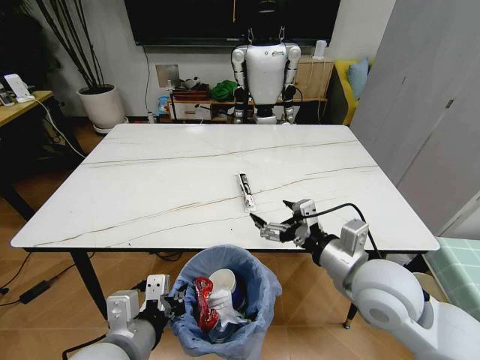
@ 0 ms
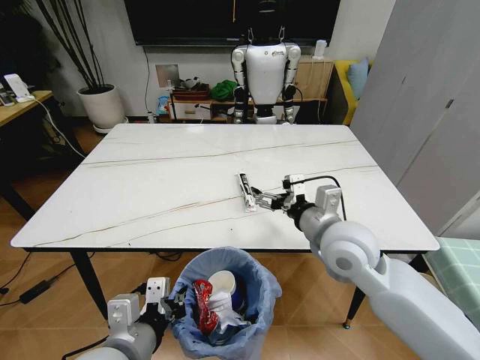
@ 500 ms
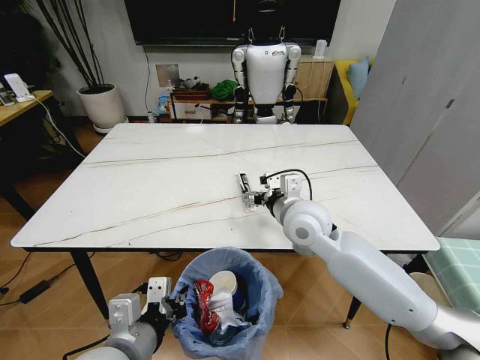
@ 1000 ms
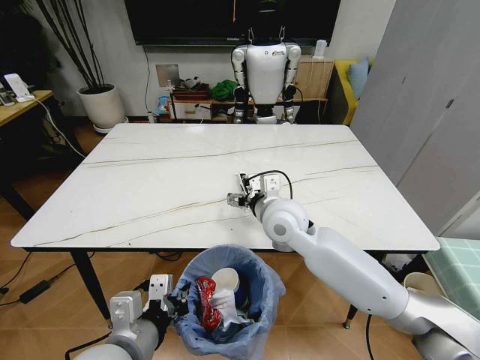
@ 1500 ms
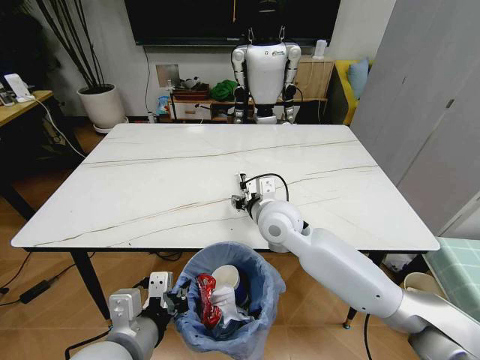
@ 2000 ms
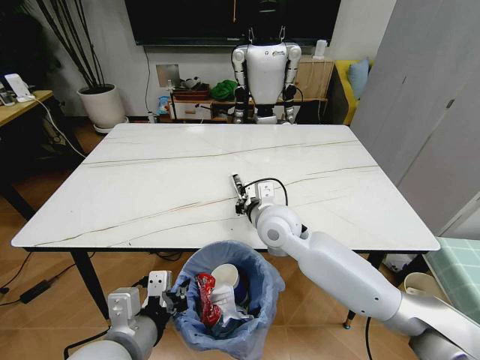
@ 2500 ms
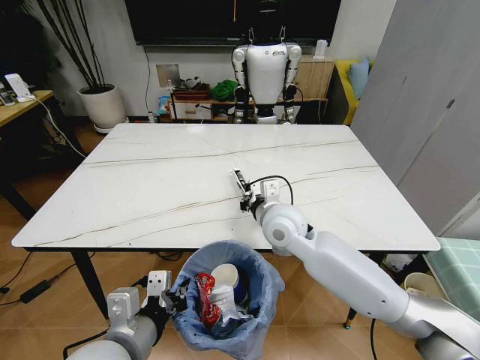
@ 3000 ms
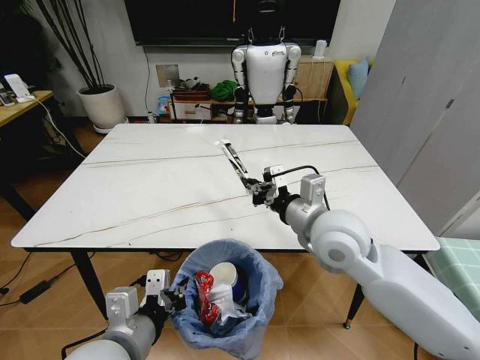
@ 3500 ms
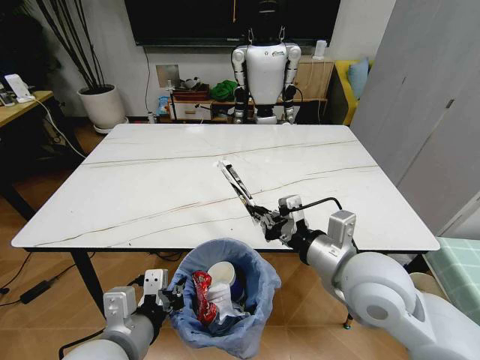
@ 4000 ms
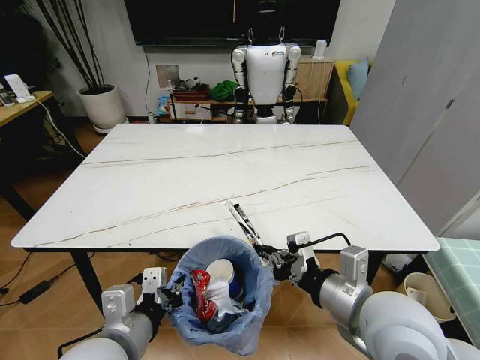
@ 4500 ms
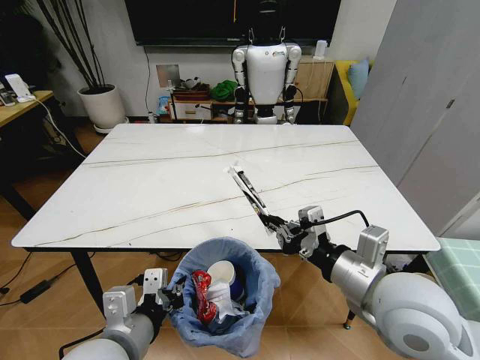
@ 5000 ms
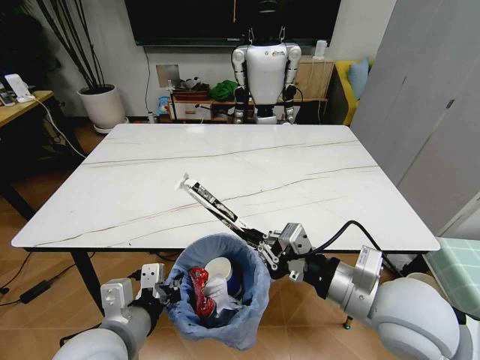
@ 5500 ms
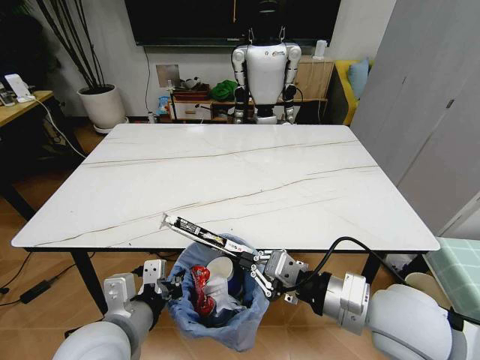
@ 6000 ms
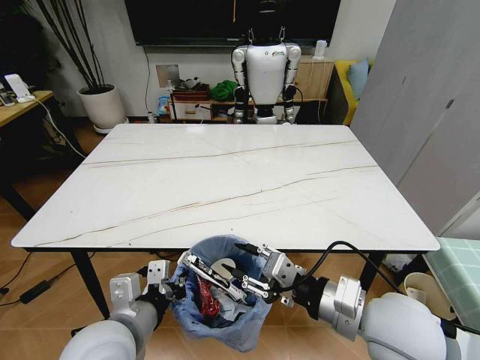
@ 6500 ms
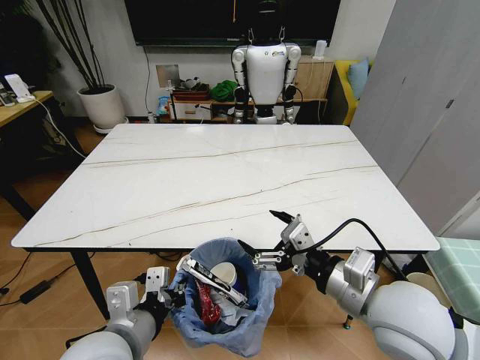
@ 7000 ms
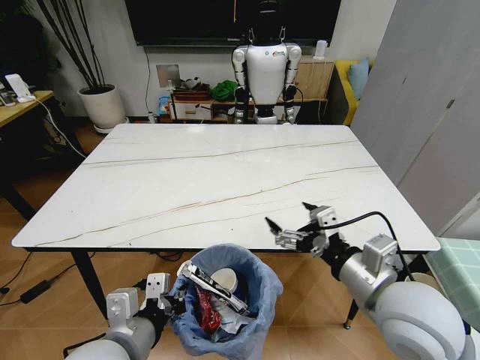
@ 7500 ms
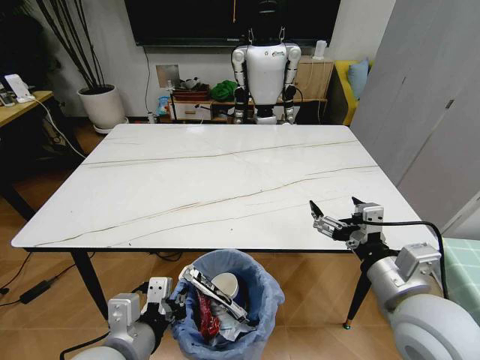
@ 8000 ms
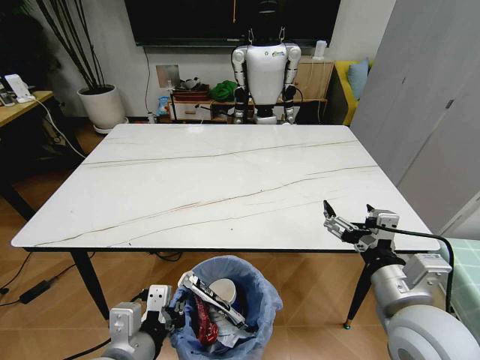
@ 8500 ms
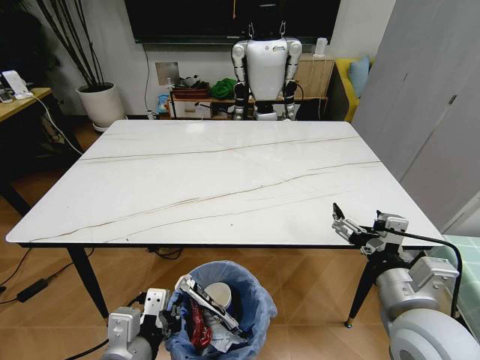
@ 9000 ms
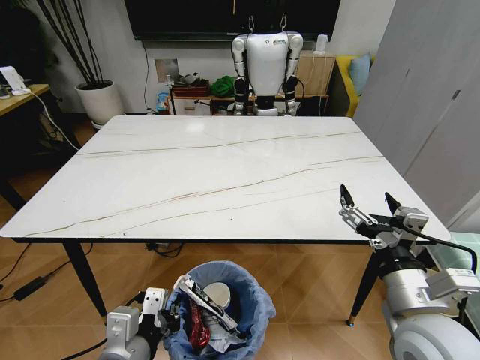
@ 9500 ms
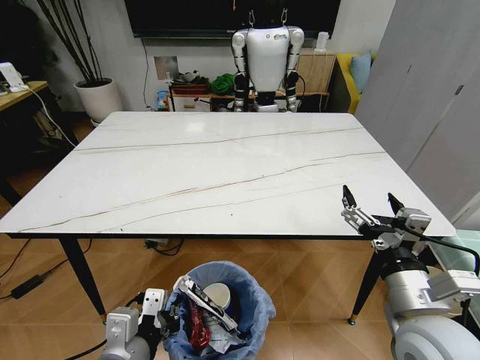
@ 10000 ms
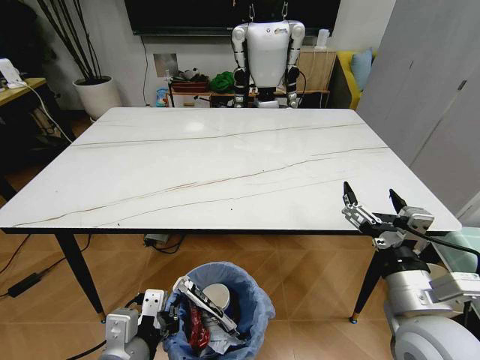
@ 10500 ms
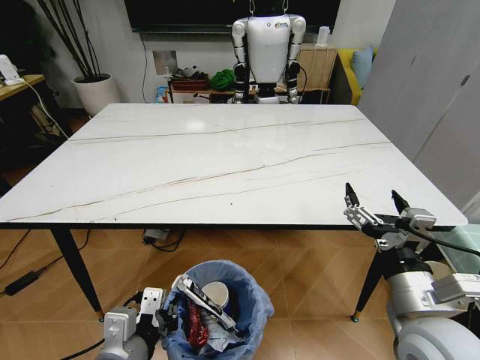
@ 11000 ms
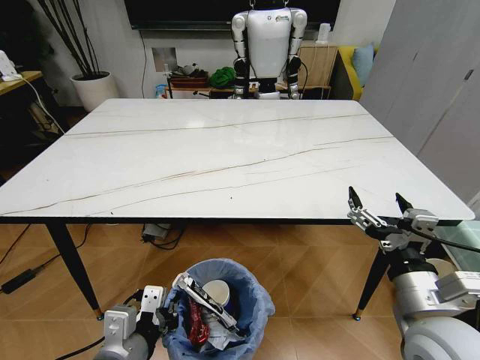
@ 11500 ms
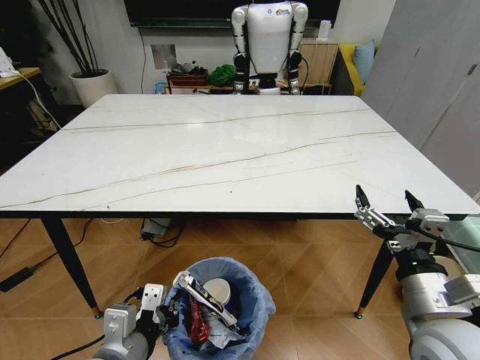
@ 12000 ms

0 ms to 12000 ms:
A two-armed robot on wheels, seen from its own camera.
Task of the whole recording: Pick up the trash bin and place the trash from the table into it.
0 ms to 2000 ms: The right gripper is displaced forward and to the left by some 20 cm, and closes up.
2000 ms to 4000 ms: The right gripper shifts about 20 cm backward and to the right, and closes its fingers.
4000 ms to 6000 ms: The right gripper ends up roughly 5 cm from where it was.
6000 ms to 8000 ms: The right gripper opens.

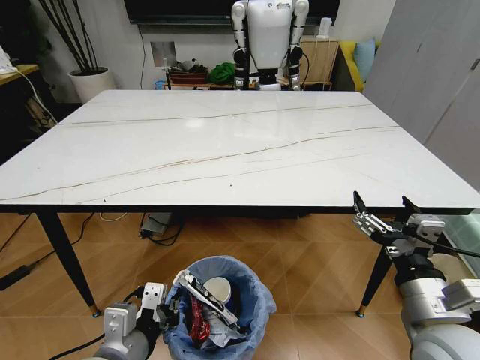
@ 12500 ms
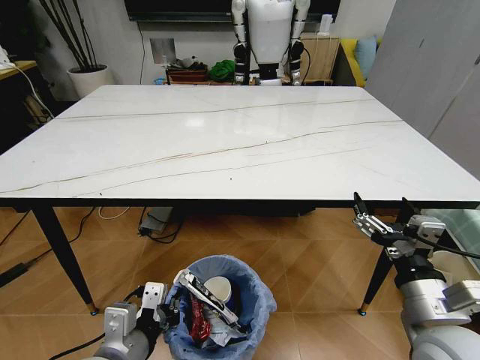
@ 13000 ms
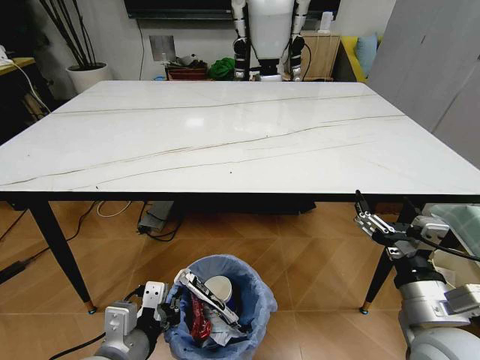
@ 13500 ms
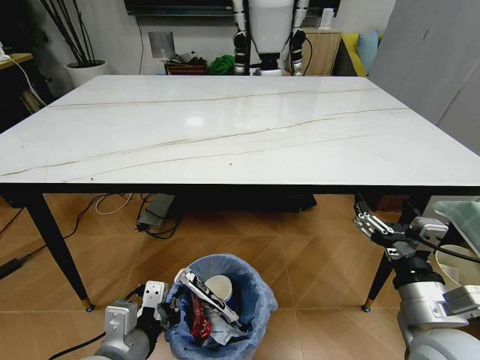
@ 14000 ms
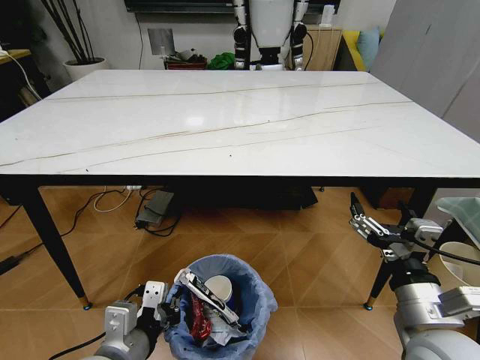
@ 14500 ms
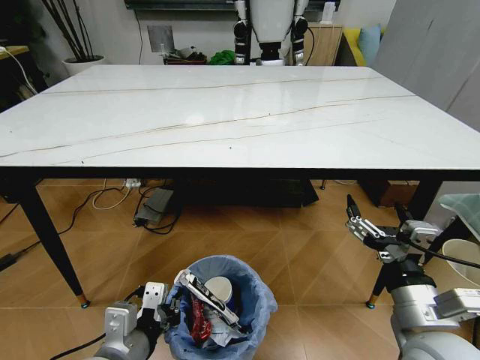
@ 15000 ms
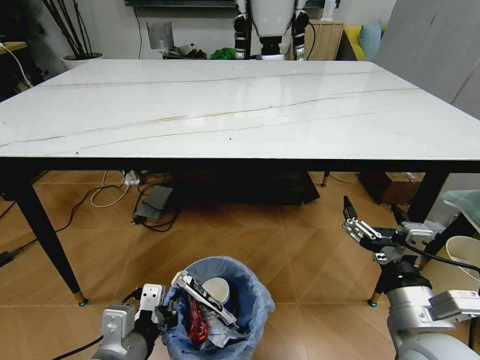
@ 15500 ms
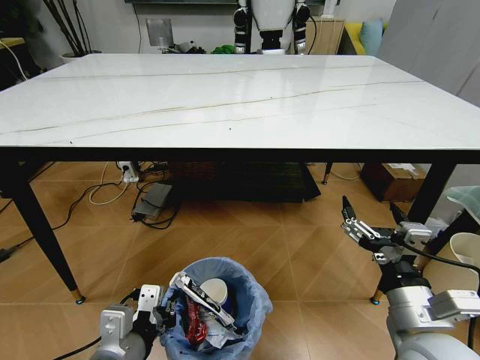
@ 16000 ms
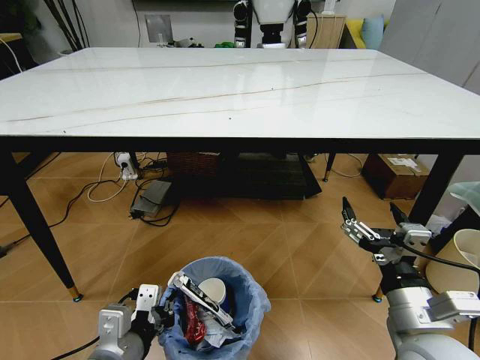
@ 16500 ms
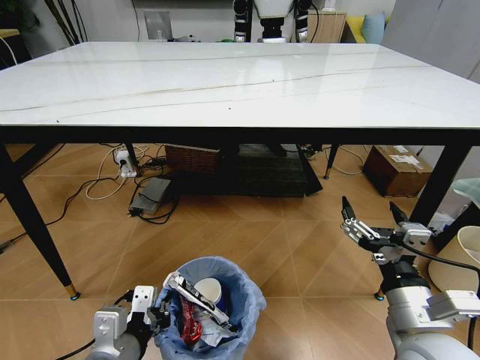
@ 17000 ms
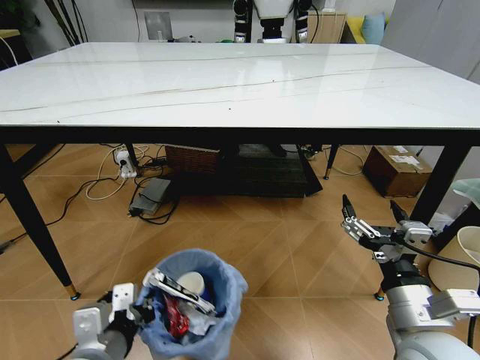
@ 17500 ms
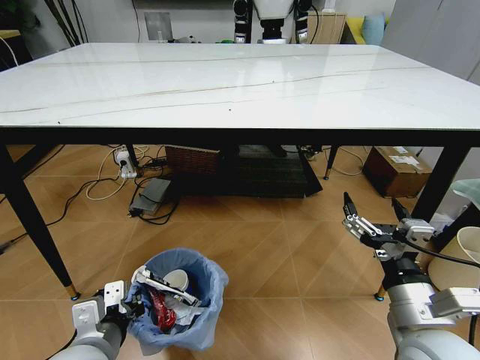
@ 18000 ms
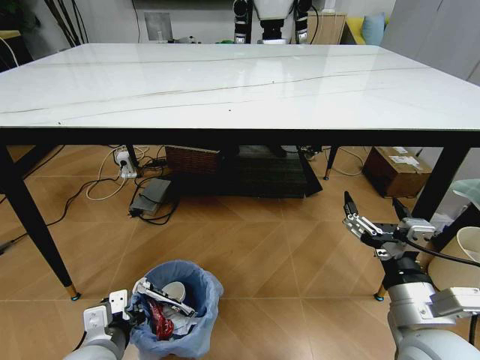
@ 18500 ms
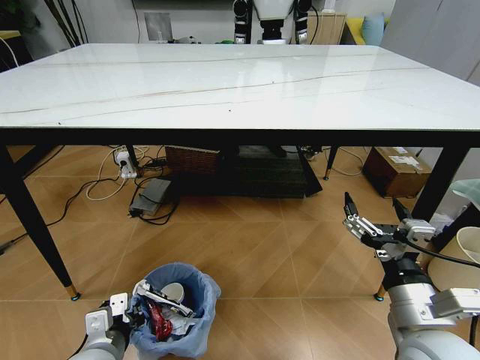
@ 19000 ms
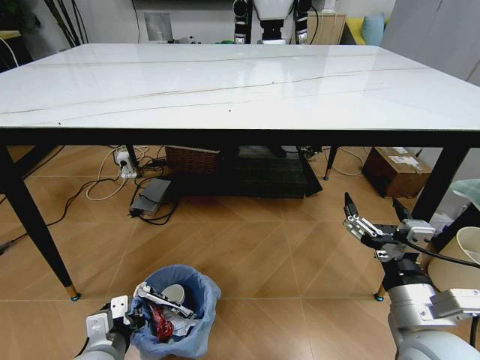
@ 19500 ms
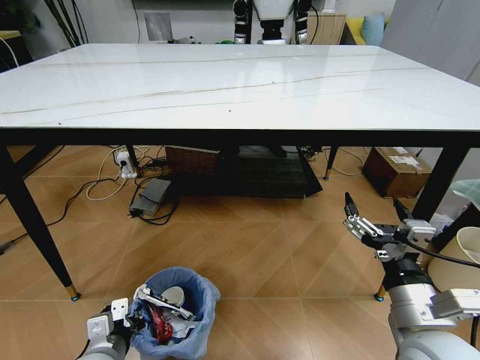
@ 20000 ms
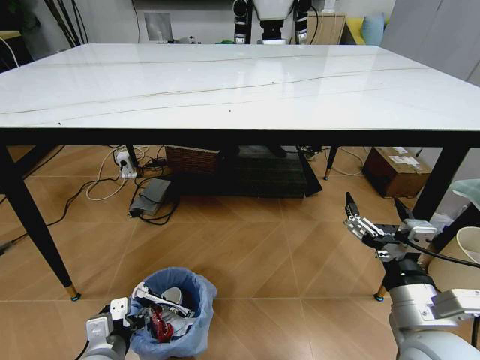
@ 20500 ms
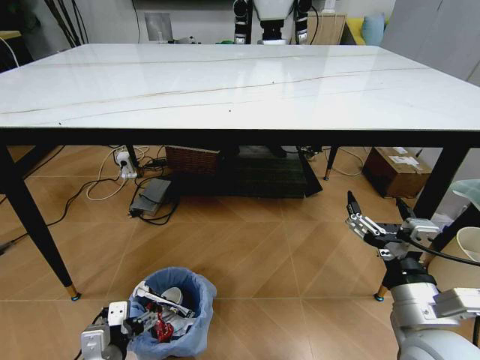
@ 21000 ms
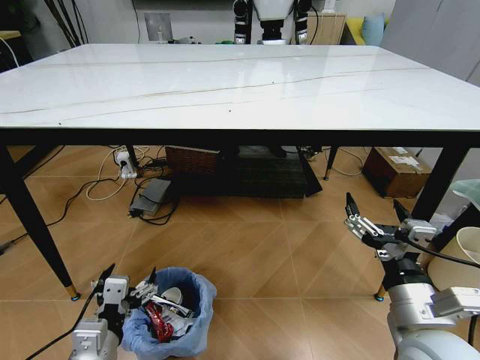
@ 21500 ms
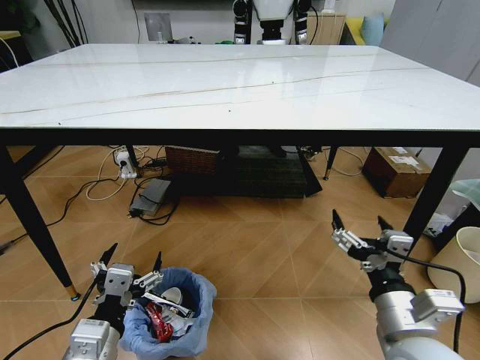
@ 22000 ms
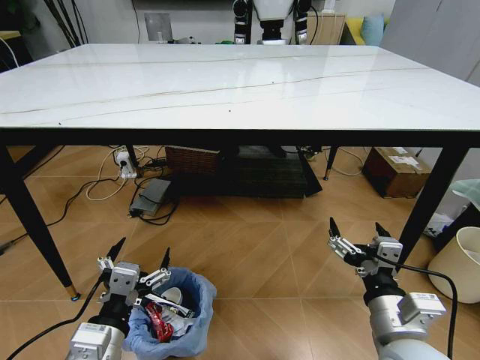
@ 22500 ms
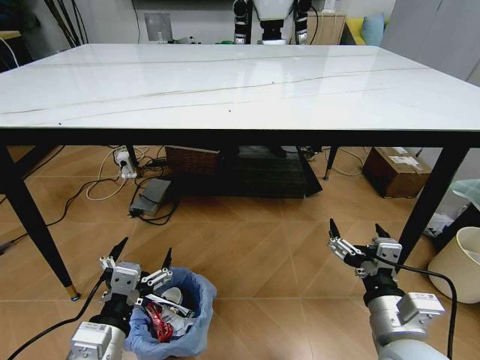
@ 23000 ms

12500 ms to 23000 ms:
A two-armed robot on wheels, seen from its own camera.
Task of the whole recording: Pick up the trash bin and place the trash from the table into it.
16500 ms to 19000 ms: The left gripper moves downward and to the left, approximately 10 cm.
19000 ms to 21000 ms: The left gripper opens.
21000 ms to 23000 ms: The left gripper shifts roughly 10 cm upward.

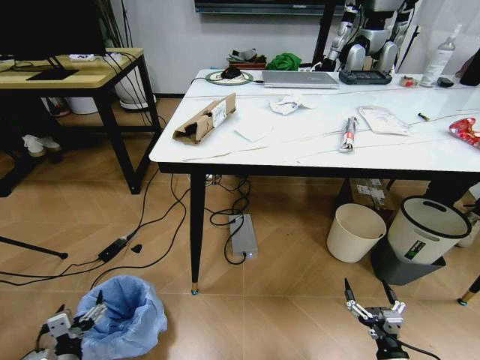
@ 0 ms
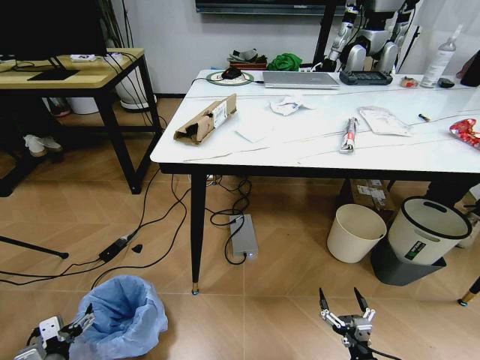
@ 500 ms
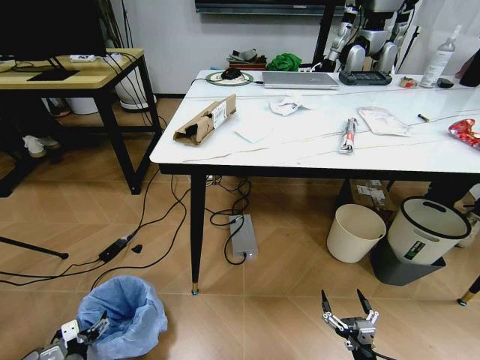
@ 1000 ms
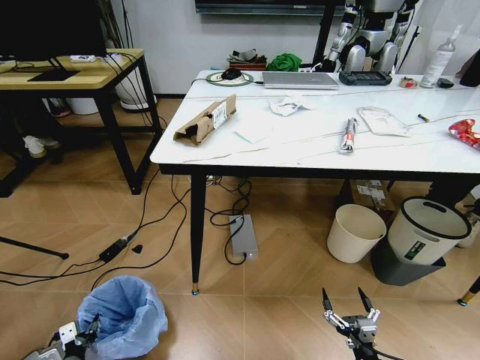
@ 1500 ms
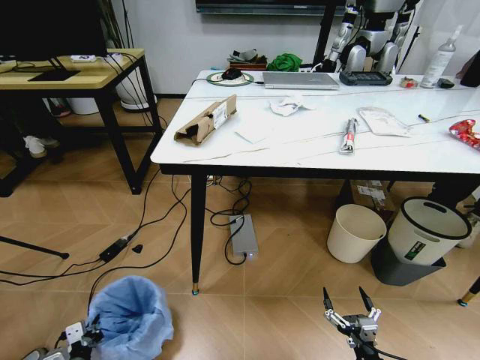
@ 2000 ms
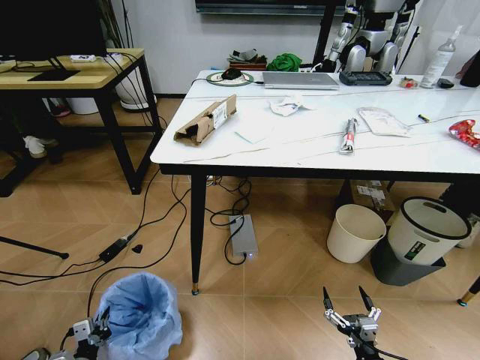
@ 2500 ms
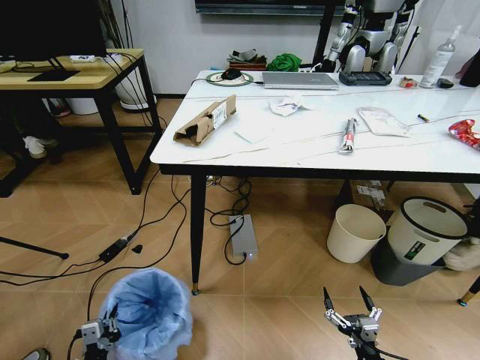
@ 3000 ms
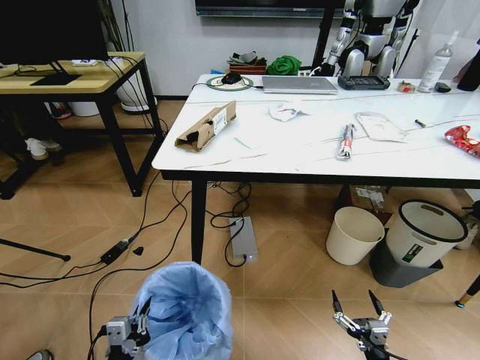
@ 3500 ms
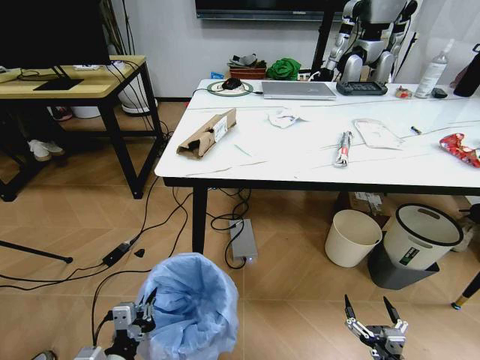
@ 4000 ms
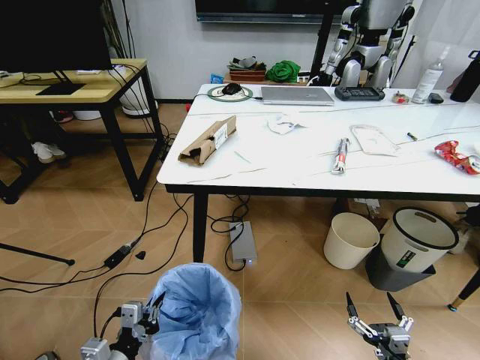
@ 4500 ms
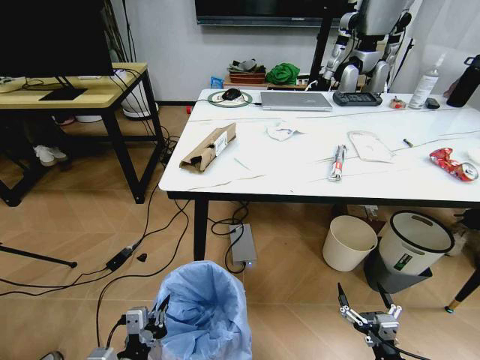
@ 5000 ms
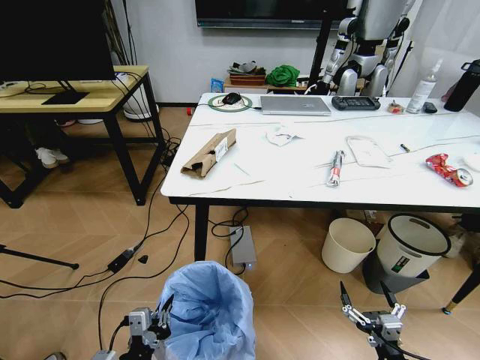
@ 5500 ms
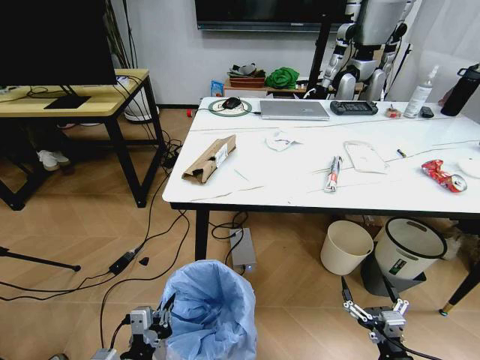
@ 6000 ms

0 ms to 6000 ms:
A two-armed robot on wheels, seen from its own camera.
Task of the whole recording: Pick up the trash bin and place the trash from the table into it.
0 ms to 2000 ms: The left gripper goes approximately 10 cm downward, and closes its fingers.
2000 ms to 4000 ms: The left gripper heads upward and to the right, covering about 25 cm.
4000 ms to 6000 ms: The right gripper moves some 5 cm.
